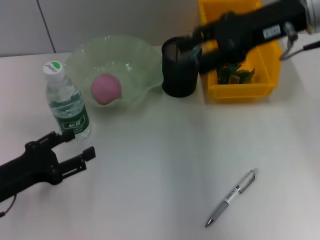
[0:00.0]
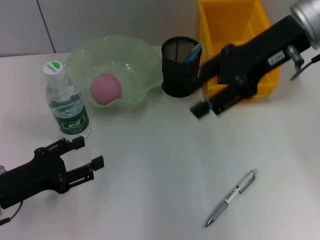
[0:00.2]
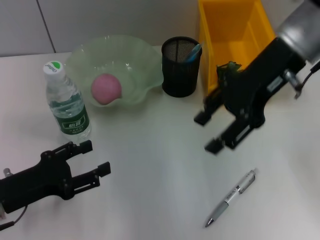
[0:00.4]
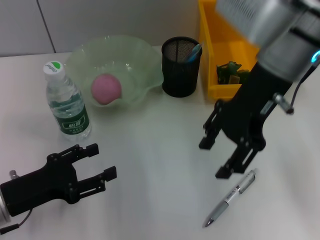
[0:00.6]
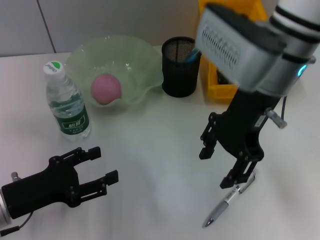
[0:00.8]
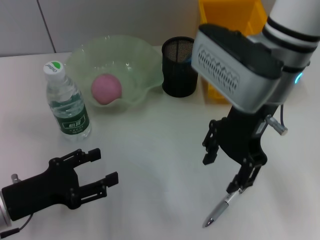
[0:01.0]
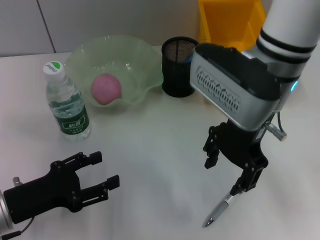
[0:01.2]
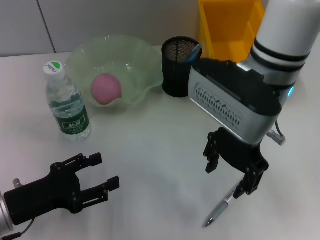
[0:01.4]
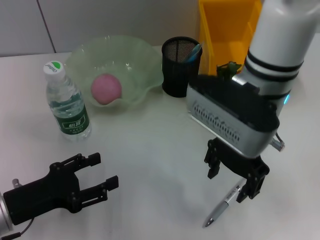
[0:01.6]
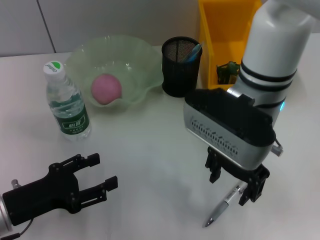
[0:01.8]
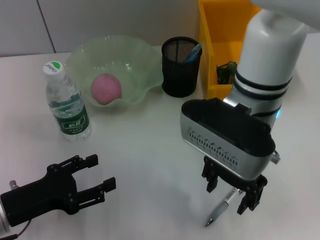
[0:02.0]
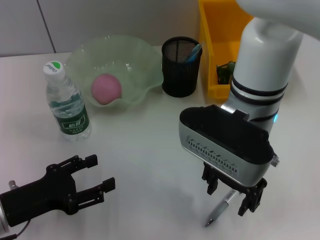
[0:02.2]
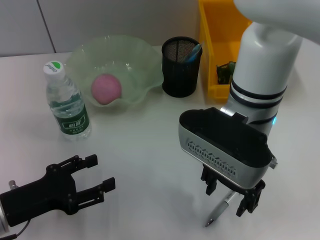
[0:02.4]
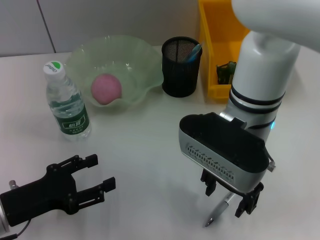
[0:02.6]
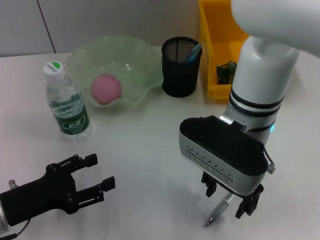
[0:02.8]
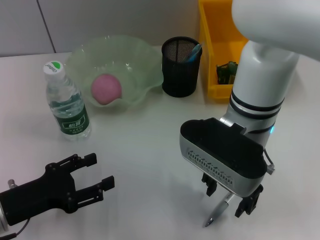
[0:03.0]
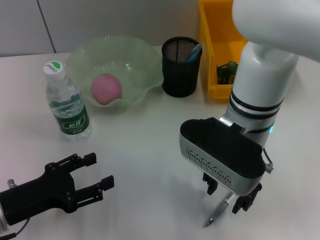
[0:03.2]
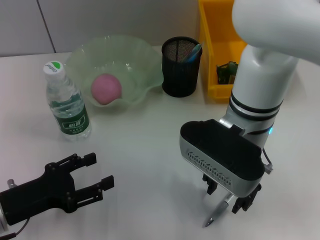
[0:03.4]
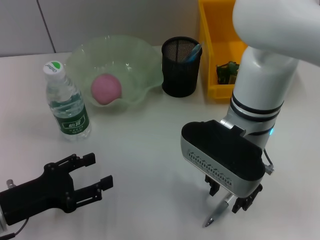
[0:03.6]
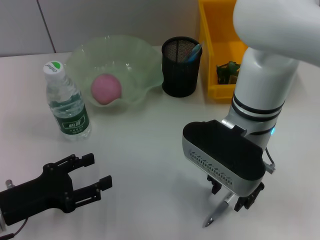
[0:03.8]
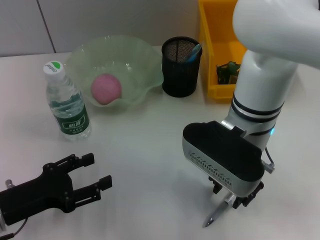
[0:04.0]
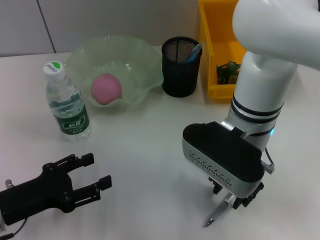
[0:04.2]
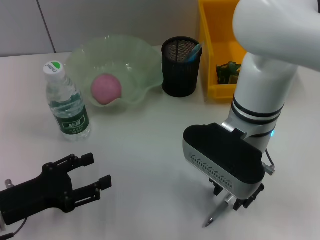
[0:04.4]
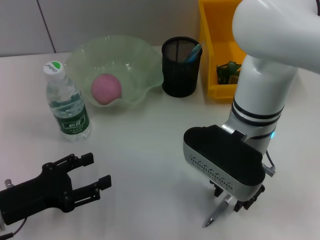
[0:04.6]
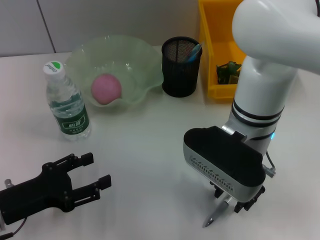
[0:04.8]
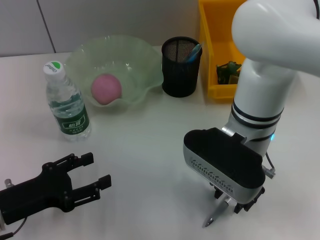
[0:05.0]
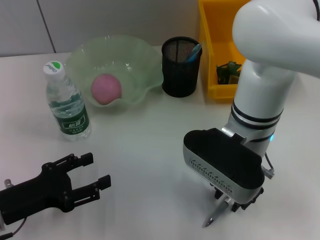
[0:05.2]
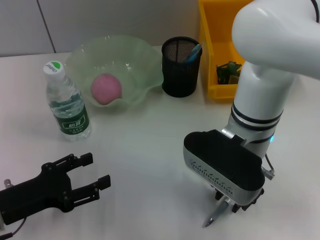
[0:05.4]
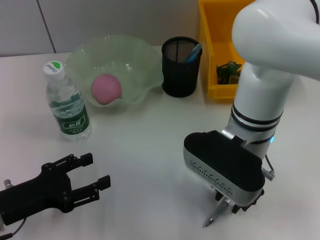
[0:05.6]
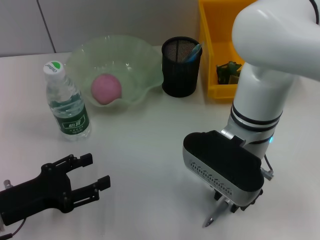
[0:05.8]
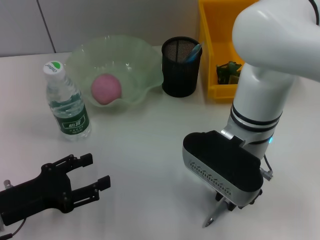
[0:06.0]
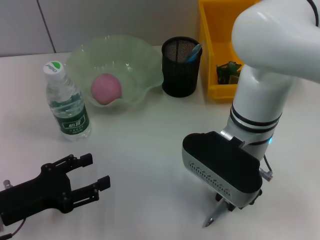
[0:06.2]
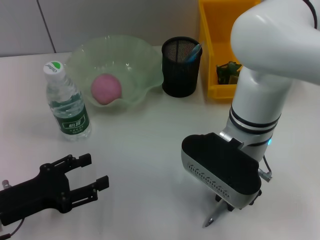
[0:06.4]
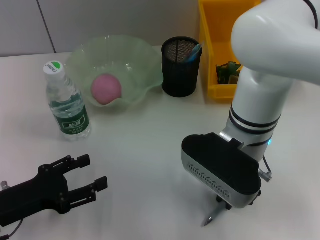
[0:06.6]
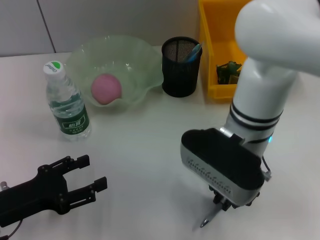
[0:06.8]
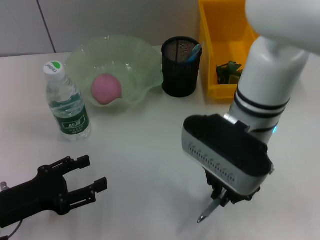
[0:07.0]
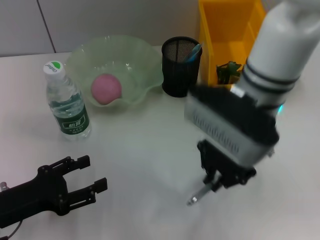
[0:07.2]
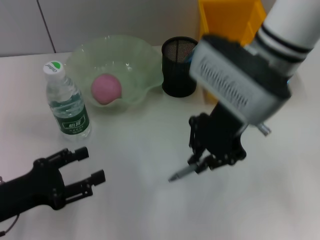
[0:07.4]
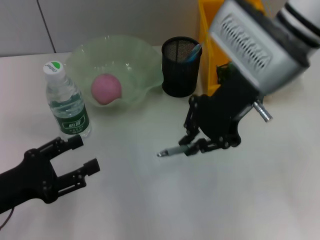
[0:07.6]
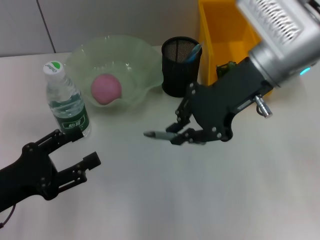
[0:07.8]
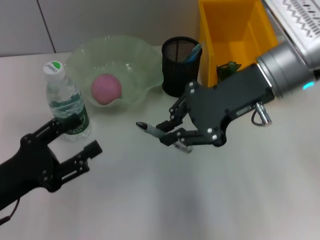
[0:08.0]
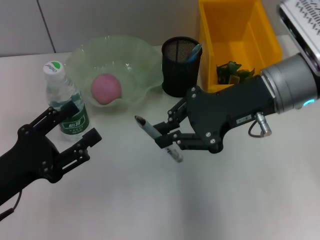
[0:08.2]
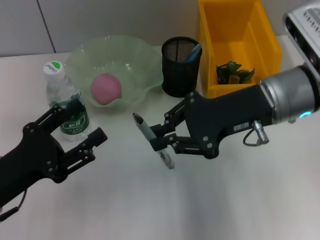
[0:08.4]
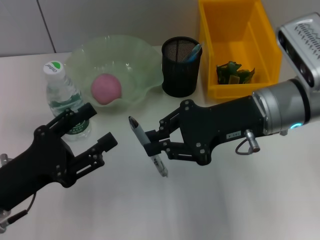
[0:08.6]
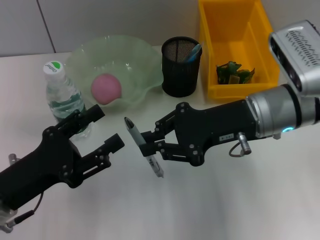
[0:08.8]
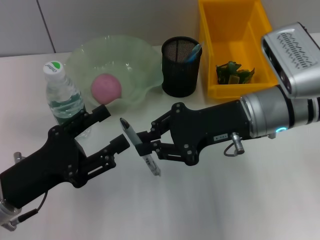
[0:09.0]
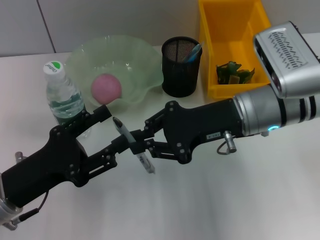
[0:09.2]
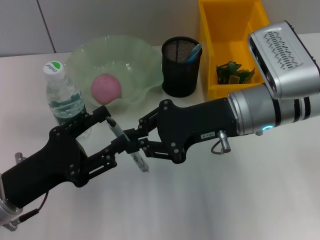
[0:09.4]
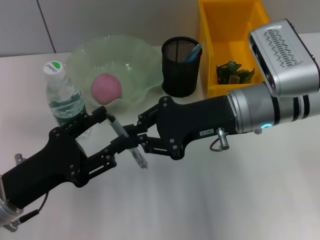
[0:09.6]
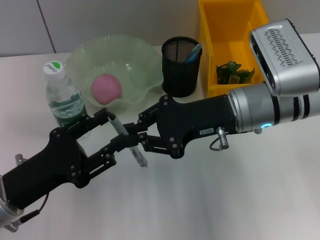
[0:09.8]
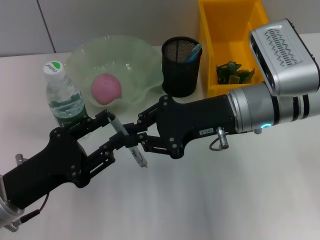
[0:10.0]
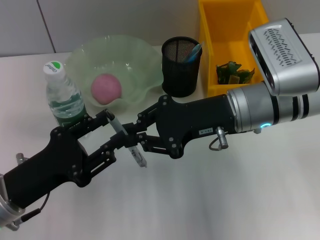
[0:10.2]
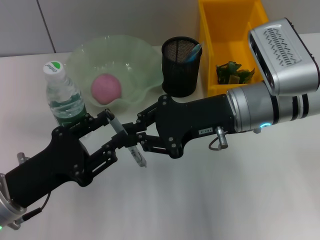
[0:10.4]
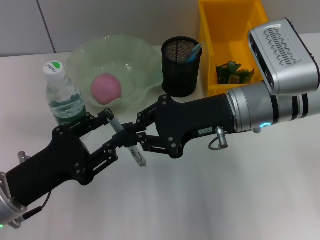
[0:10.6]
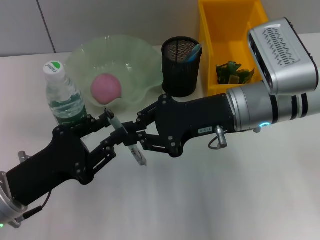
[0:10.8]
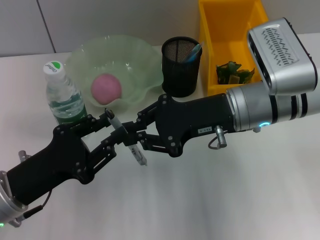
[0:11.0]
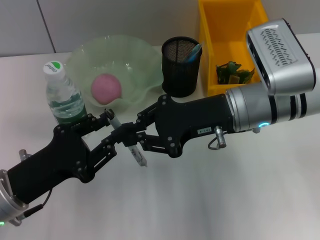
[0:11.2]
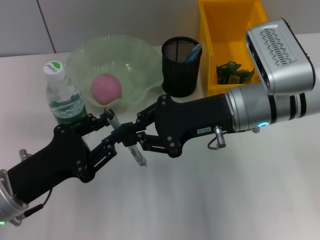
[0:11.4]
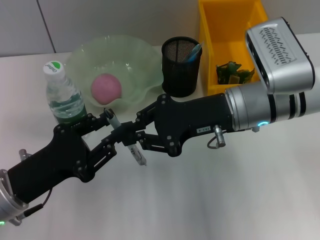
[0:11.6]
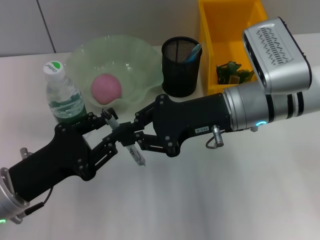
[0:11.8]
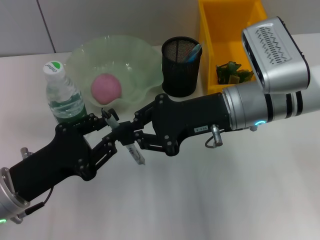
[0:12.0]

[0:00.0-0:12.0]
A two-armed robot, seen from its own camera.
Step, 0:00.0 to 0:06.6: Grab the gray spring-action pen with the right hand.
0:00.0 to 0:01.6: The right gripper shifts some 10 cm to the left and downward.
0:01.6 to 0:04.4: The grippers stay close to where they were, moving slightly.
0:04.4 to 0:06.0: Both grippers stay put.
0:06.0 to 0:07.6: The right gripper goes approximately 10 cm upward.
0:07.6 to 0:09.0: The right gripper shifts roughly 10 cm downward.
0:09.0 to 0:10.4: There are only small adjustments of the grippers.
0:10.4 to 0:12.0: Both grippers stay put.

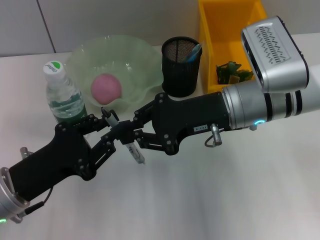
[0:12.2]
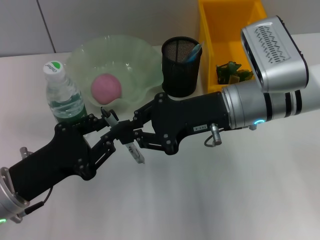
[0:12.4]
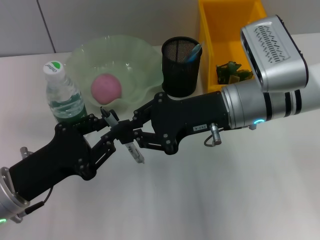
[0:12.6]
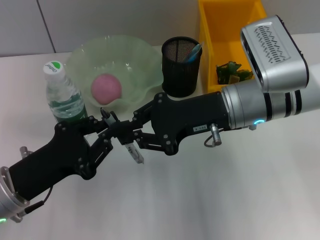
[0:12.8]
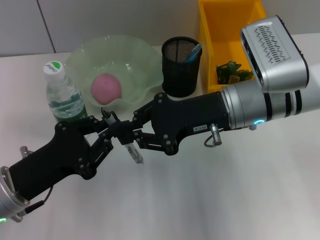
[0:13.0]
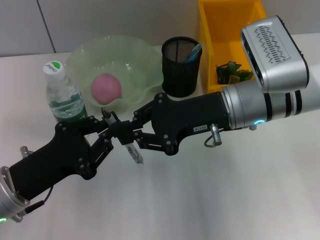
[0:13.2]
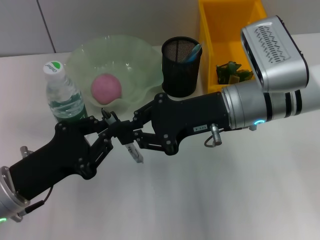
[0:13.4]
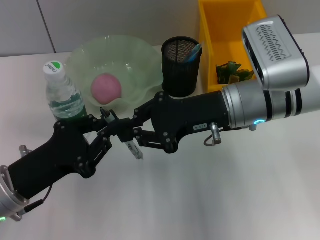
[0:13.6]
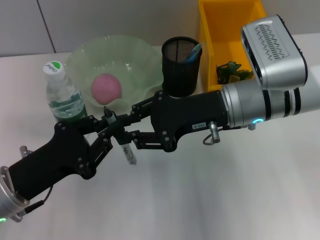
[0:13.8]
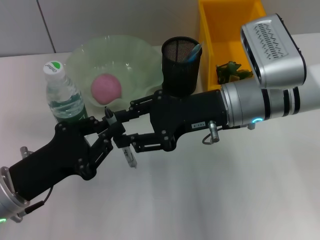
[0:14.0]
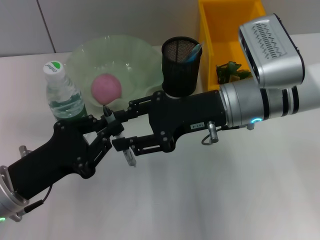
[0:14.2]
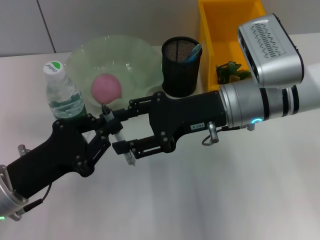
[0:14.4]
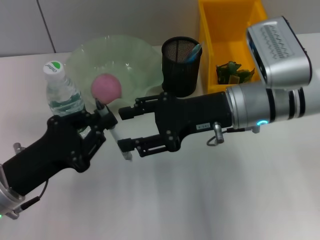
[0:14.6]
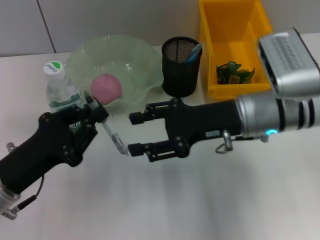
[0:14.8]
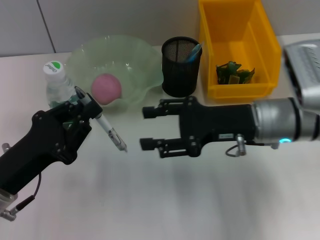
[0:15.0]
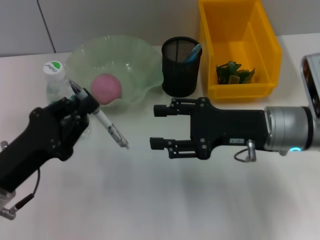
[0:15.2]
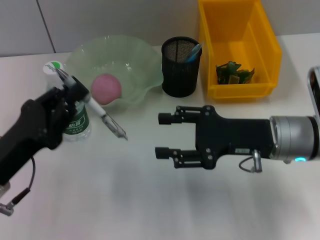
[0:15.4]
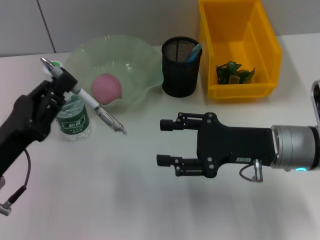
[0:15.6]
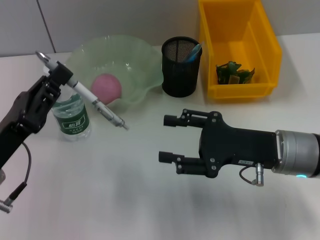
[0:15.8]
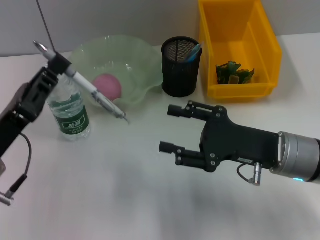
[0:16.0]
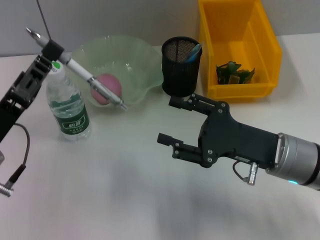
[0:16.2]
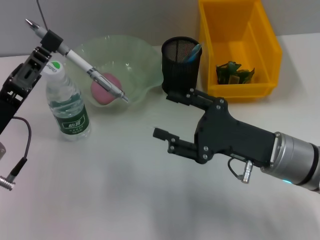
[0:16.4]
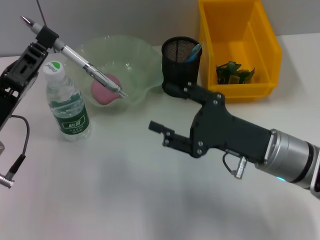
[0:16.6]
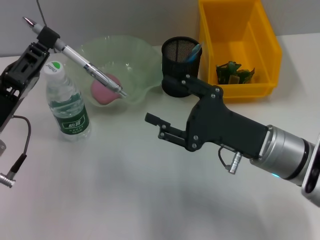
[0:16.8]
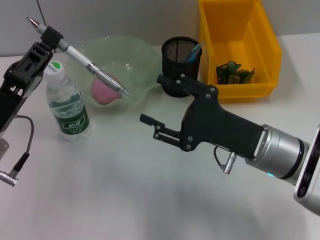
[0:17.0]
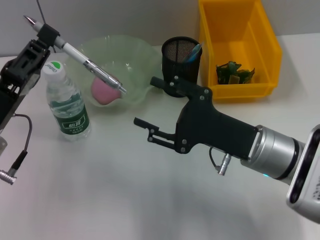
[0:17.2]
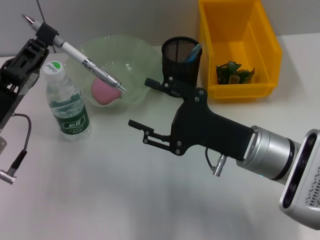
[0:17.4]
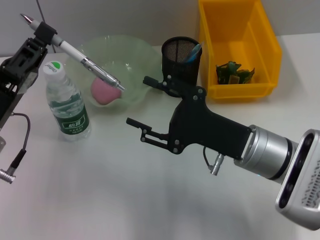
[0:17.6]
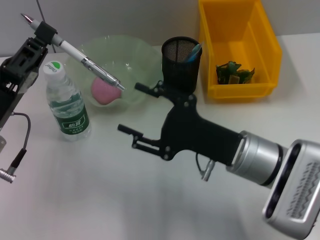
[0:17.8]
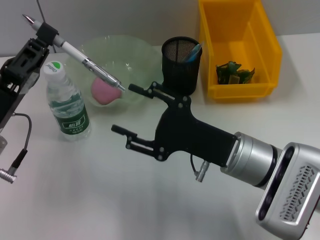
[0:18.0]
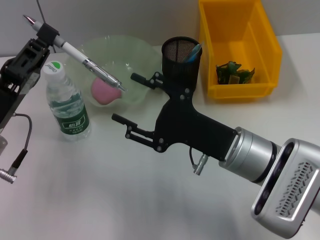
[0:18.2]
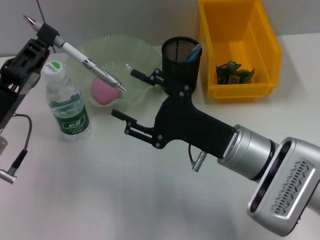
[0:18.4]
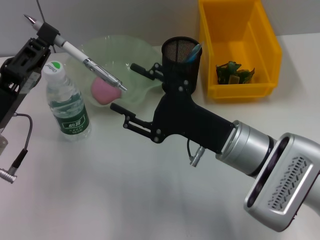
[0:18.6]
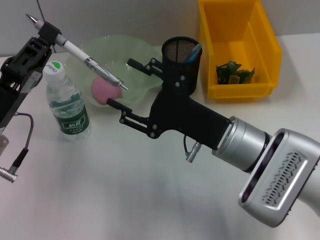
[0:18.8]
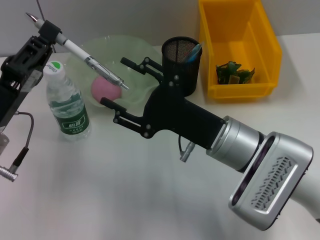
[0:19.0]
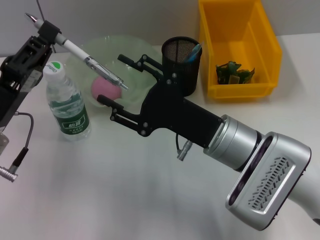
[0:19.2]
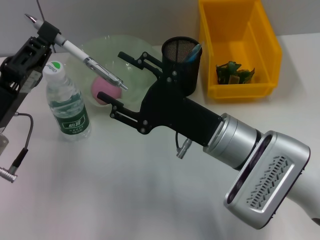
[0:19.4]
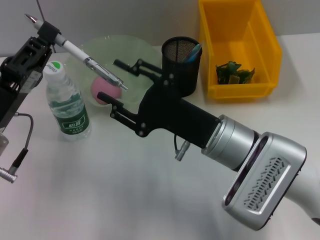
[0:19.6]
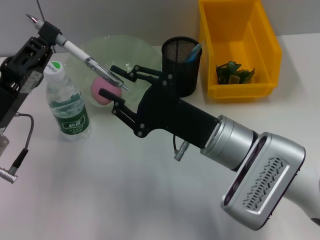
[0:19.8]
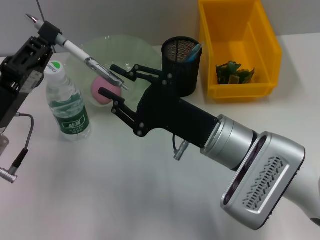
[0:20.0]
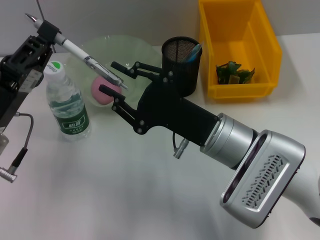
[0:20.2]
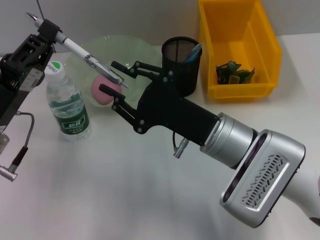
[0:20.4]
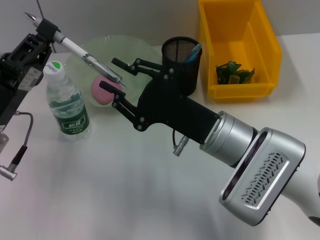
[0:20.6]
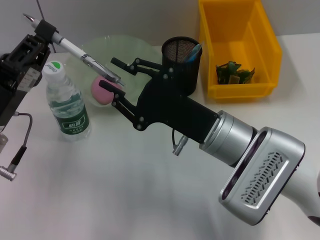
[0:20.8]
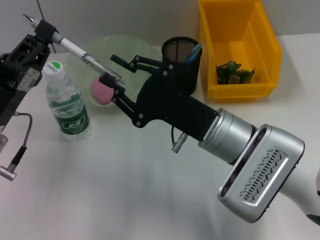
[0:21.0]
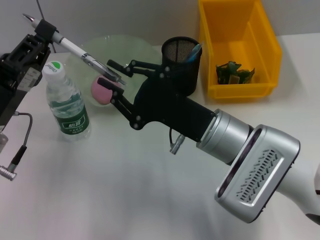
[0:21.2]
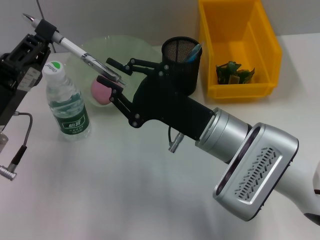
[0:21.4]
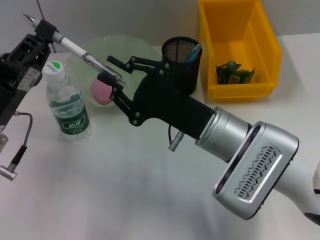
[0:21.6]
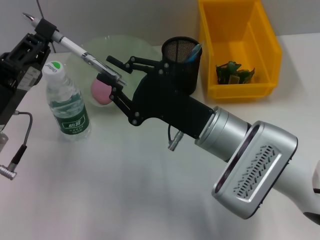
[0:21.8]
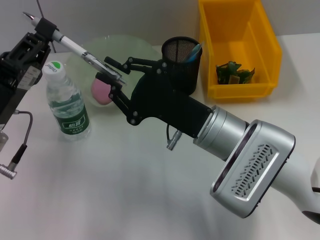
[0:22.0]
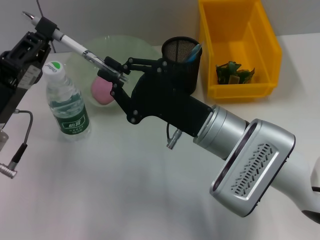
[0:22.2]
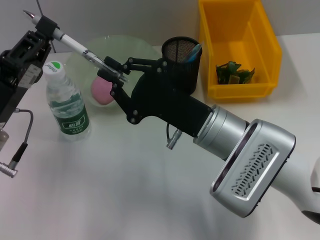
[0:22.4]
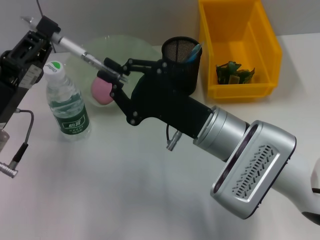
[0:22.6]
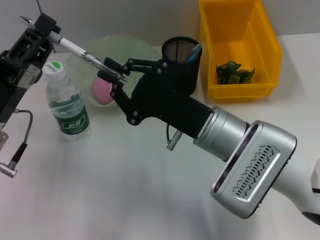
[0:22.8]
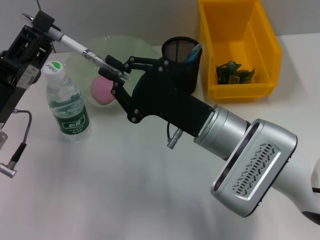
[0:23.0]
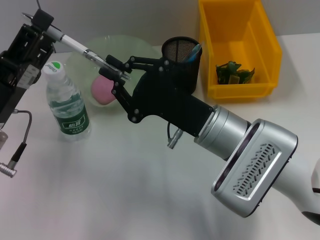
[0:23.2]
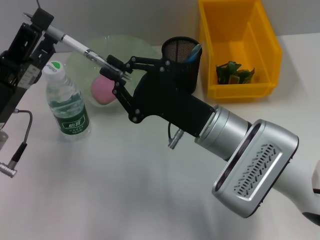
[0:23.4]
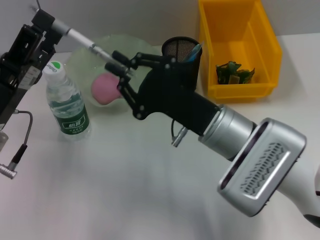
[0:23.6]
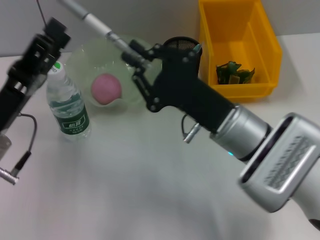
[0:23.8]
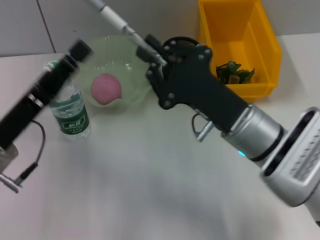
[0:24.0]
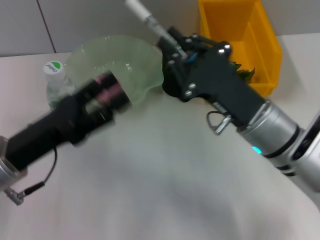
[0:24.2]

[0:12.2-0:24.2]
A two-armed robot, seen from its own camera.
Step, 0:14.4 to 0:23.2: Pass the gray spring-action pen from the left hand to the right hand.
0:12.2 to 0:13.8: The two grippers keep their place.
0:13.8 to 0:15.2: The right gripper moves to the right, about 5 cm, and opens its fingers.
0:15.2 to 0:16.6: The right gripper shifts by approximately 5 cm.
0:16.6 to 0:18.2: The grippers make only small movements.
0:18.2 to 0:19.8: The grippers move only a little.
0:19.8 to 0:21.2: Both grippers stay put.
0:21.2 to 0:22.6: Both grippers stay about where they are.
0:22.6 to 0:24.2: The left gripper opens up; the right gripper shifts approximately 5 cm to the right.
